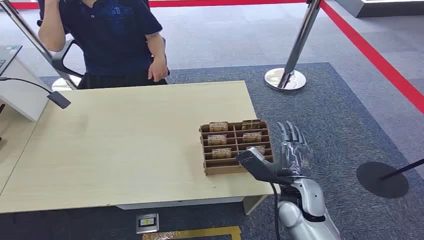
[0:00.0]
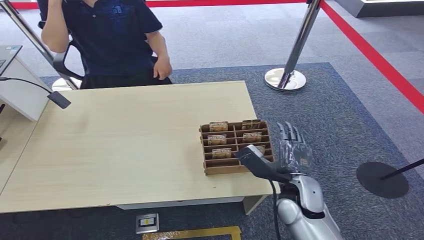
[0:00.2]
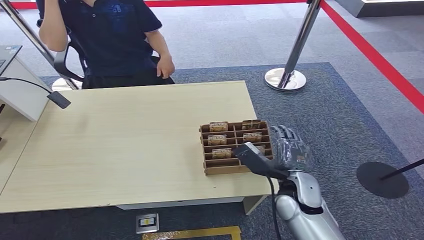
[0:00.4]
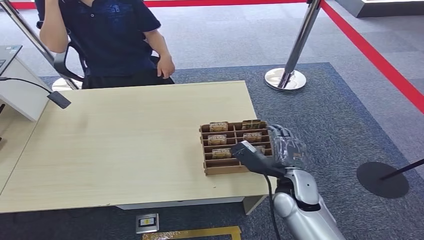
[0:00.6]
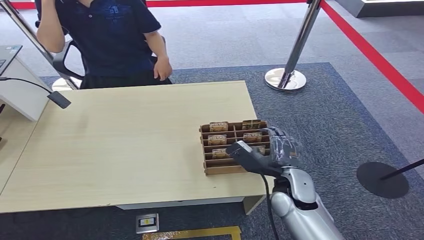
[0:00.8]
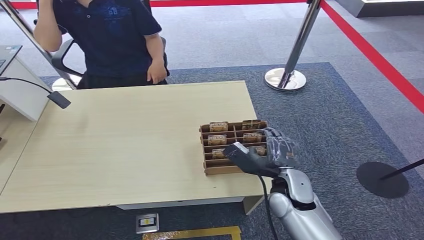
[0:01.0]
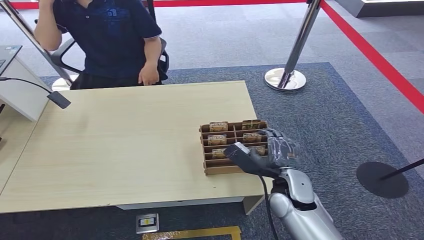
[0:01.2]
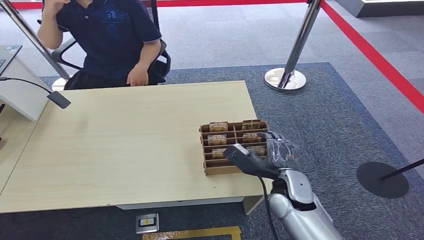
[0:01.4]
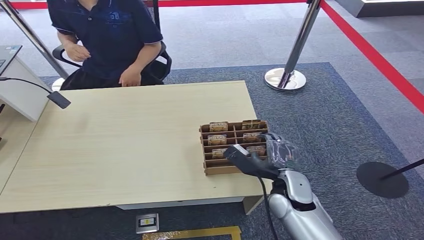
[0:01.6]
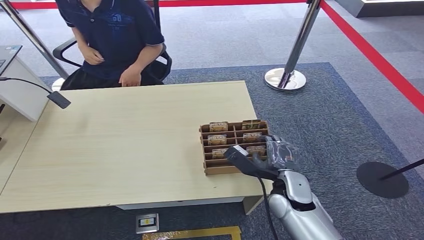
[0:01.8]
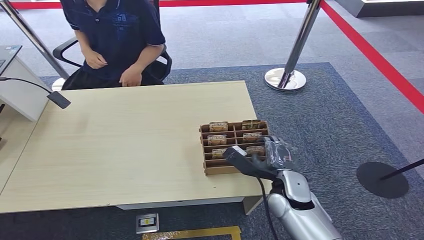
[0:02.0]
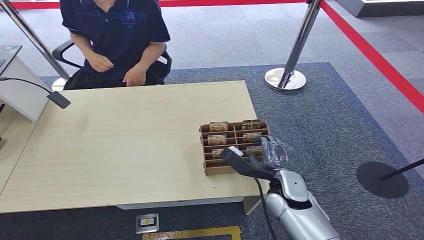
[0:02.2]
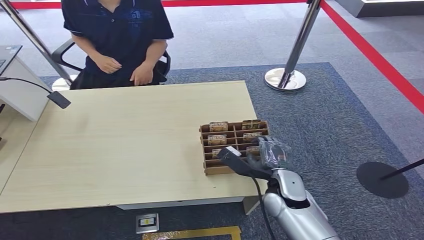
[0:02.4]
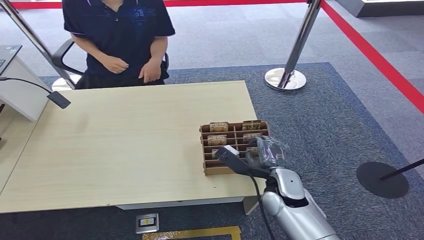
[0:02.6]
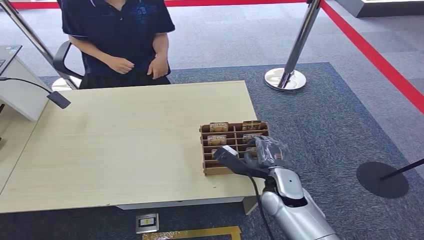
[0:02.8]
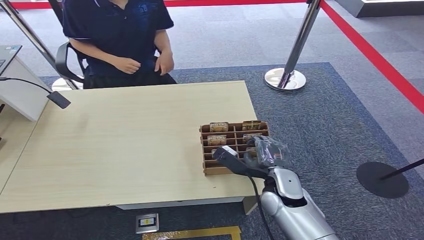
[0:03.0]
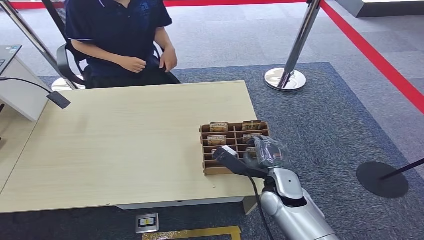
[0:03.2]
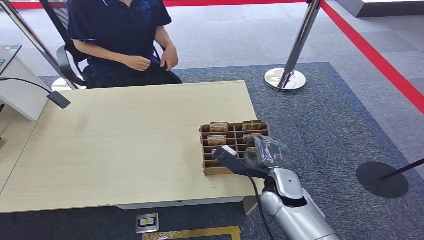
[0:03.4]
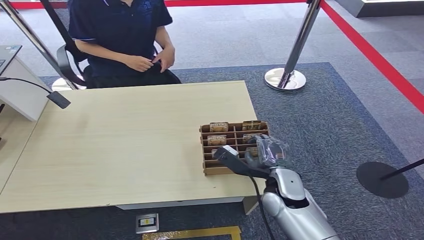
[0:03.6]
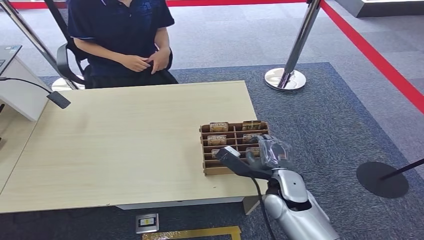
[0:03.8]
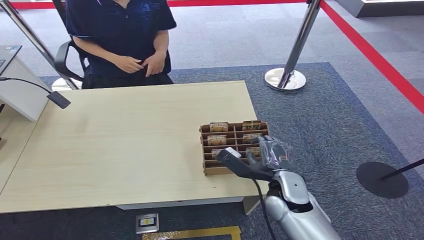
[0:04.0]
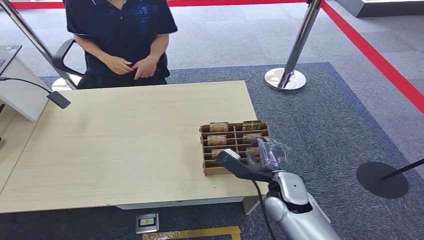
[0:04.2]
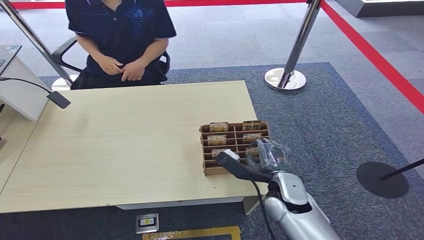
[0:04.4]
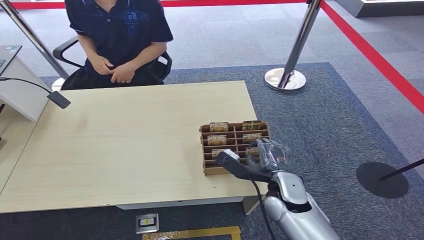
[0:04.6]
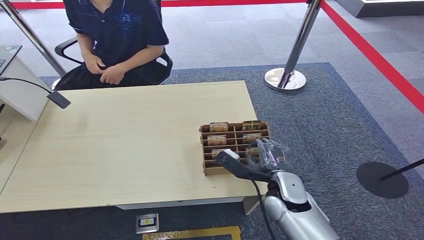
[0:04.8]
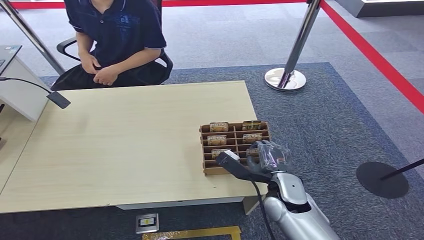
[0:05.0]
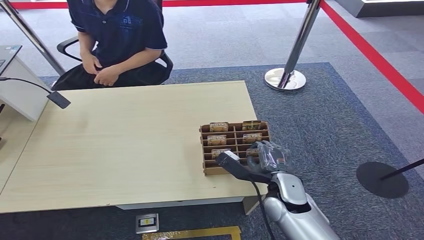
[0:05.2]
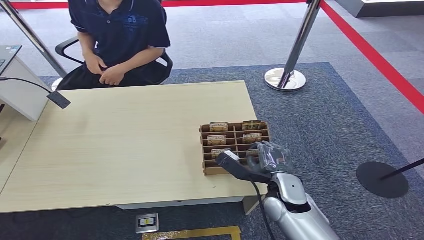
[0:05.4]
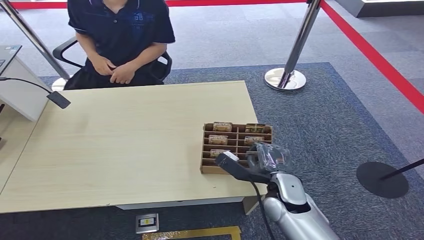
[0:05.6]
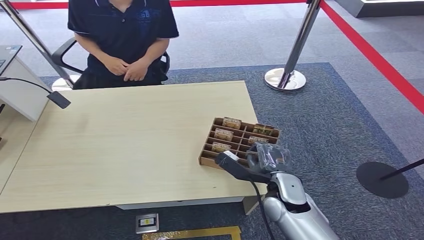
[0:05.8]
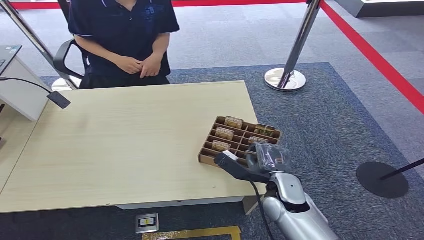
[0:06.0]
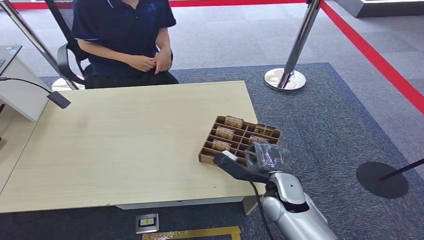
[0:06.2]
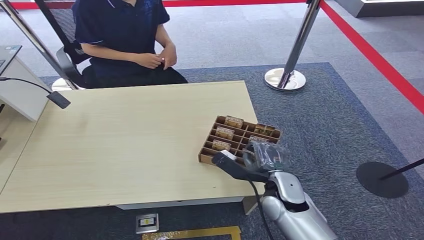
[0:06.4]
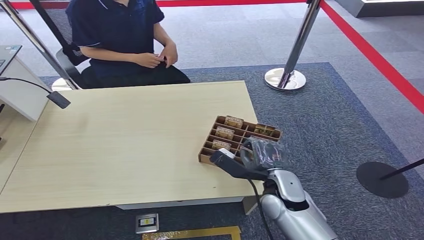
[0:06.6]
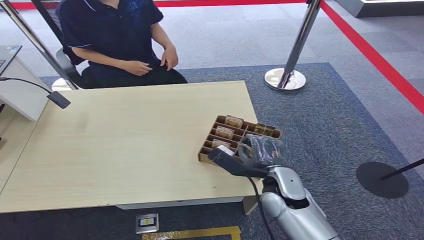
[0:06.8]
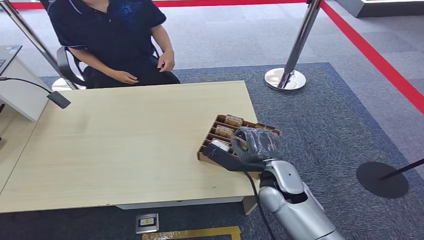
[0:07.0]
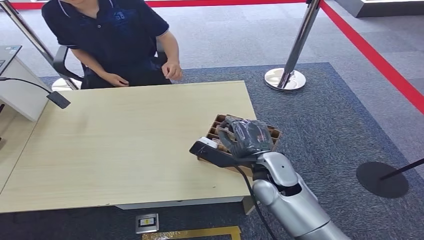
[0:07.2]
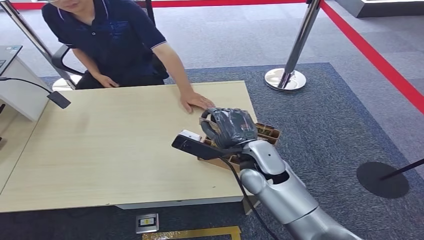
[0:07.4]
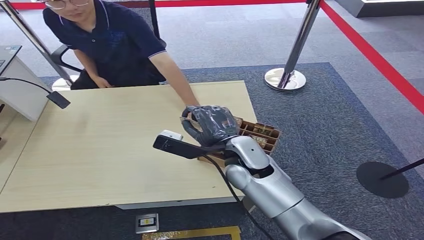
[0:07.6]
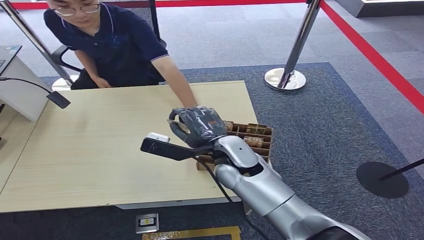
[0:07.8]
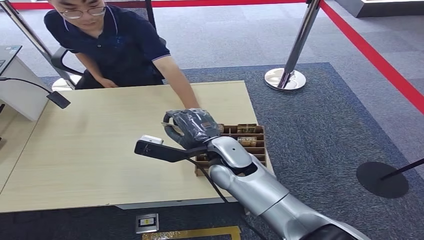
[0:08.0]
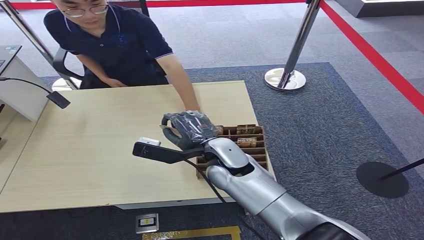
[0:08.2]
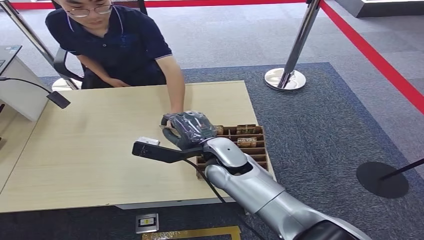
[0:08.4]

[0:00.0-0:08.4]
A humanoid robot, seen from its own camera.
Task of the whole recording: Pick up the card and hand it over to the target person.
Step, 0:00.0 to 0:07.2: Pick up the key card from the card box.
Step, 0:07.6 to 0:08.4: Hand the key card to the target.
0:01.4 to 0:04.2: The hands move only a little.
0:04.2 to 0:05.6: Neither hand changes place.
0:05.6 to 0:07.0: The right hand heads upward, covering some 10 cm.
0:07.0 to 0:08.4: The right hand goes approximately 10 cm to the left.
